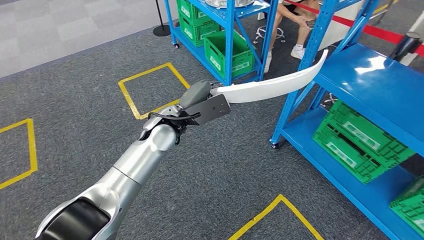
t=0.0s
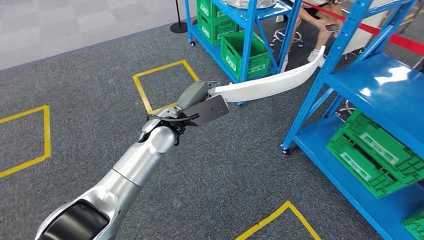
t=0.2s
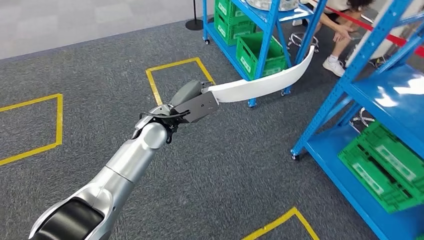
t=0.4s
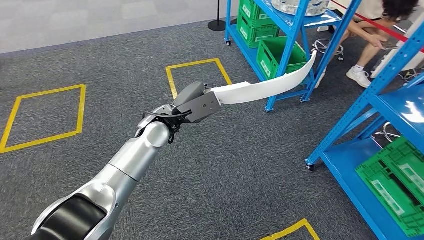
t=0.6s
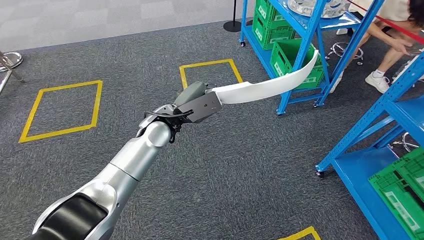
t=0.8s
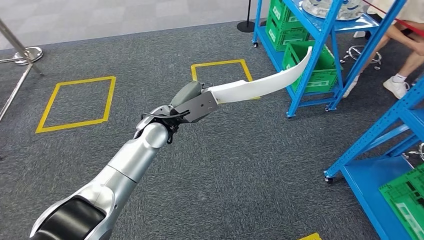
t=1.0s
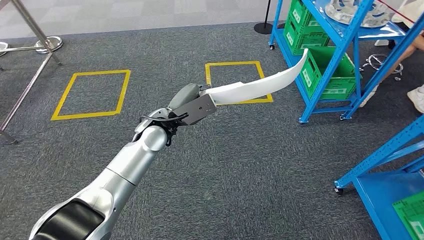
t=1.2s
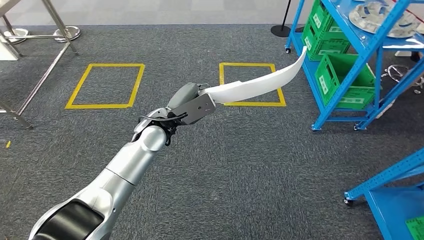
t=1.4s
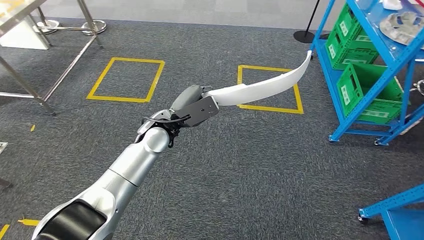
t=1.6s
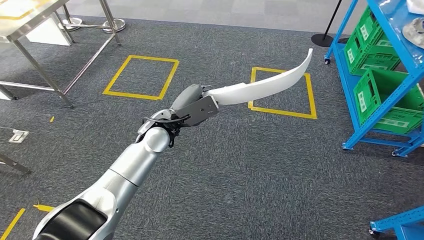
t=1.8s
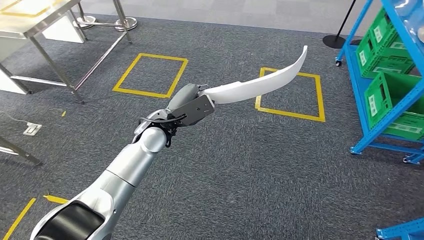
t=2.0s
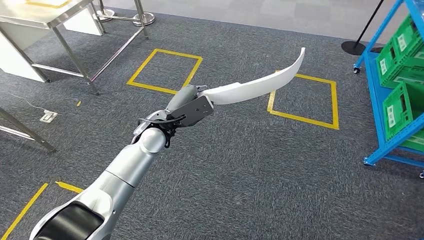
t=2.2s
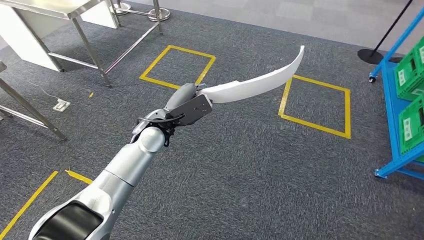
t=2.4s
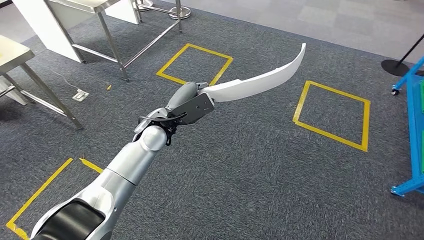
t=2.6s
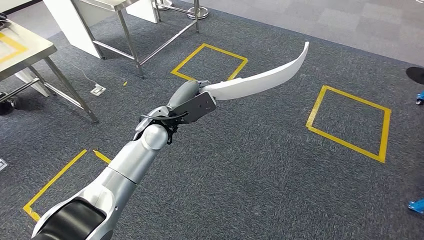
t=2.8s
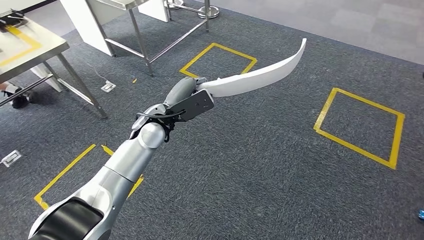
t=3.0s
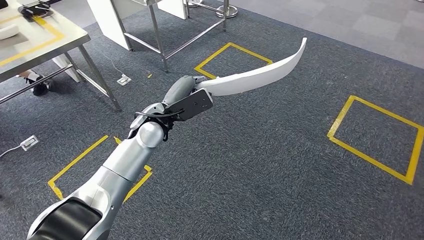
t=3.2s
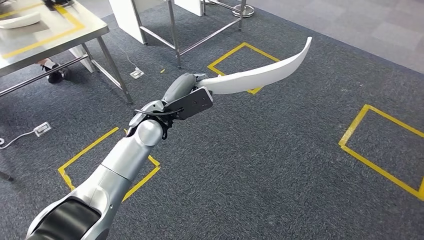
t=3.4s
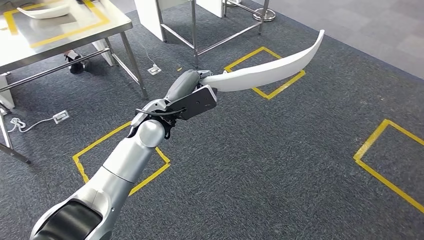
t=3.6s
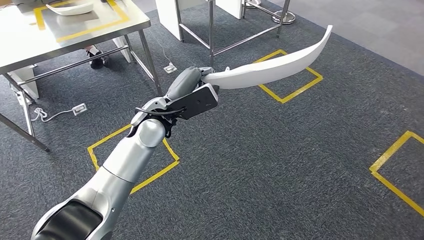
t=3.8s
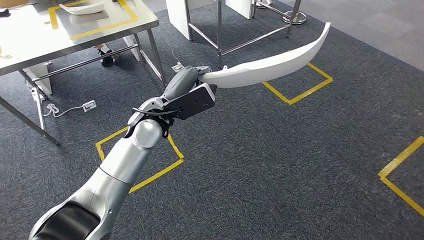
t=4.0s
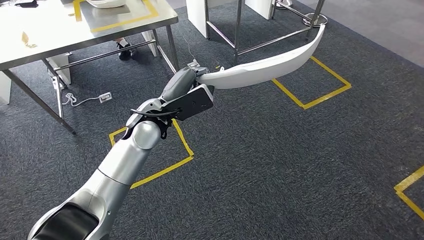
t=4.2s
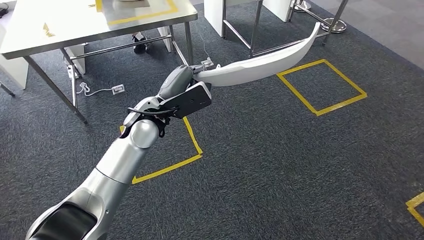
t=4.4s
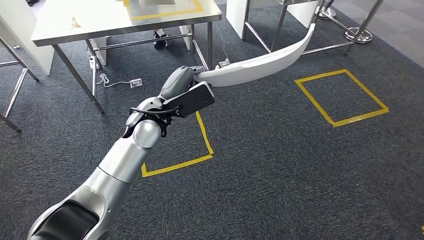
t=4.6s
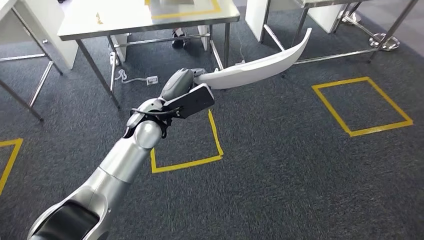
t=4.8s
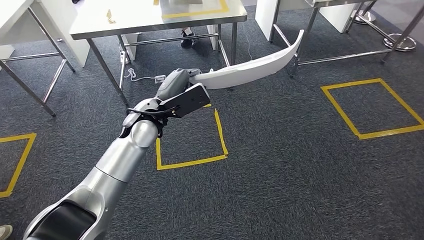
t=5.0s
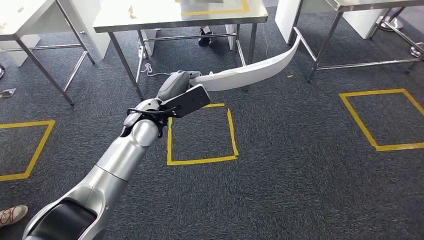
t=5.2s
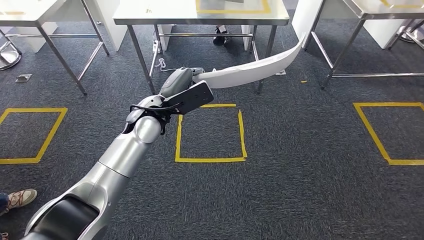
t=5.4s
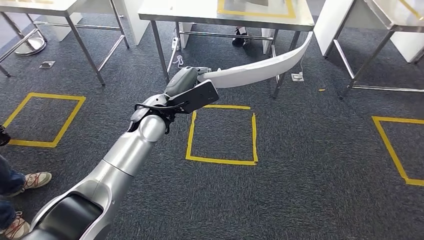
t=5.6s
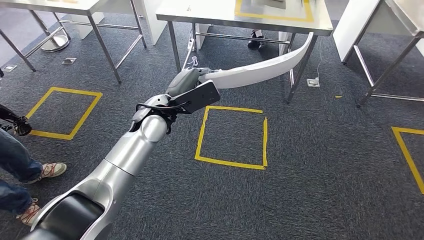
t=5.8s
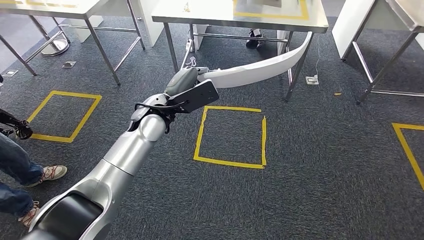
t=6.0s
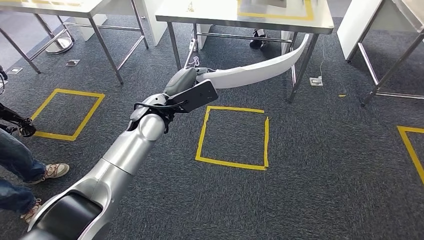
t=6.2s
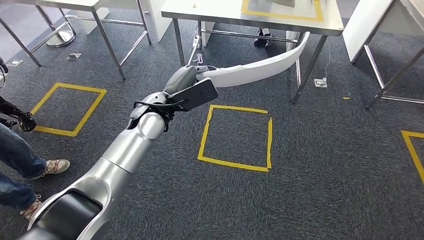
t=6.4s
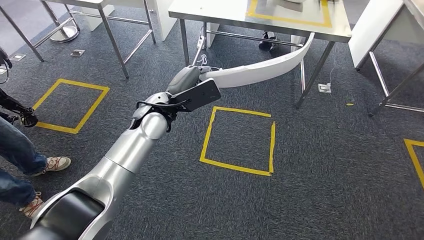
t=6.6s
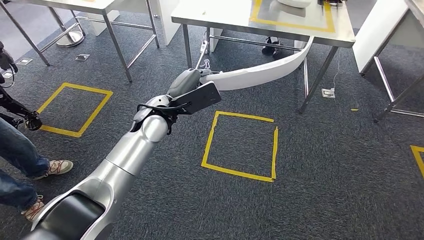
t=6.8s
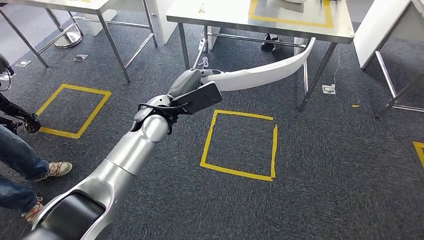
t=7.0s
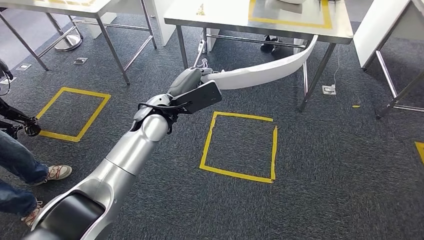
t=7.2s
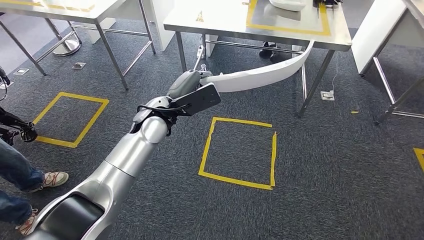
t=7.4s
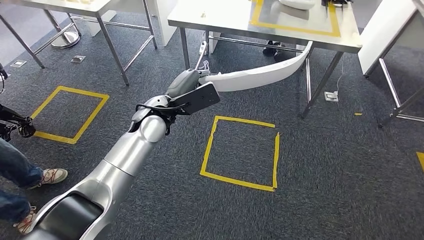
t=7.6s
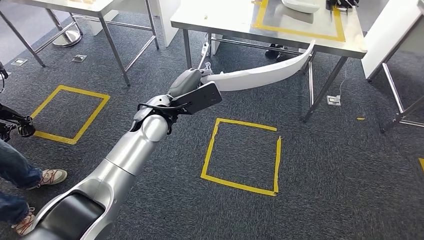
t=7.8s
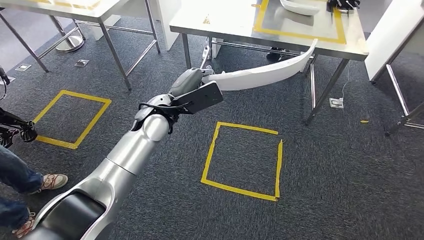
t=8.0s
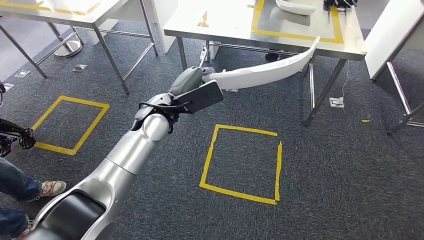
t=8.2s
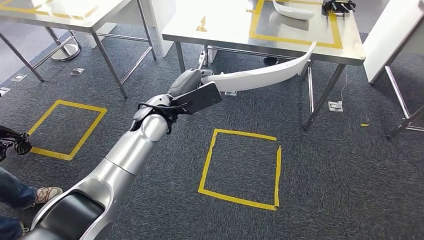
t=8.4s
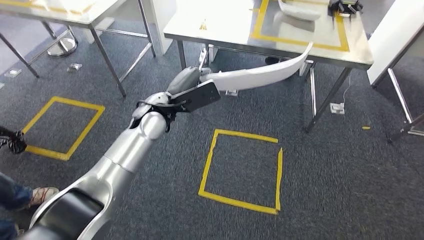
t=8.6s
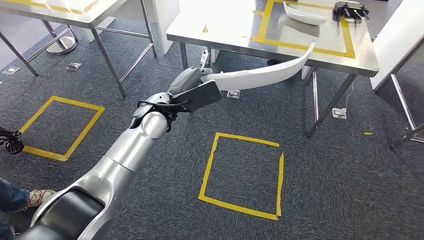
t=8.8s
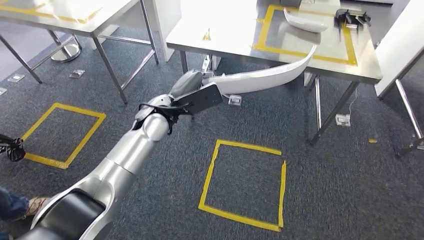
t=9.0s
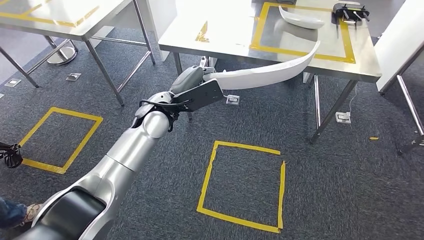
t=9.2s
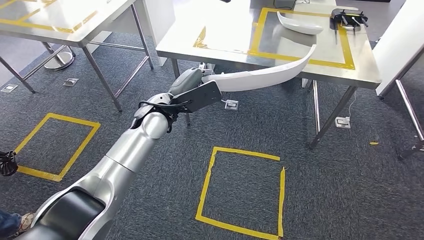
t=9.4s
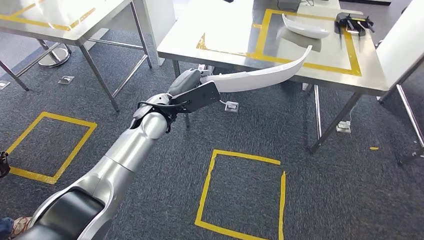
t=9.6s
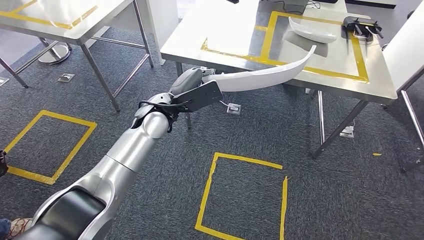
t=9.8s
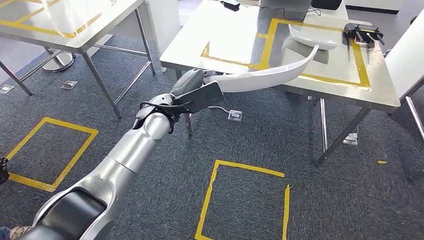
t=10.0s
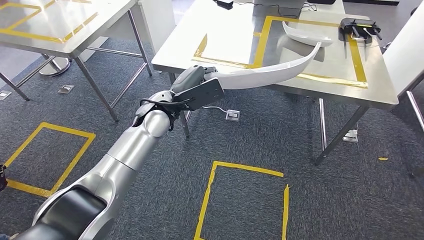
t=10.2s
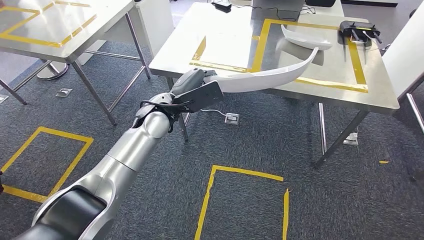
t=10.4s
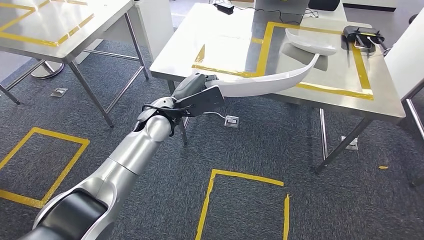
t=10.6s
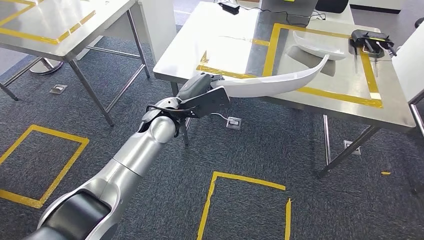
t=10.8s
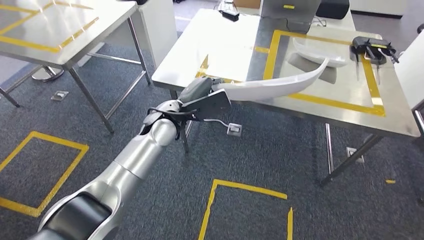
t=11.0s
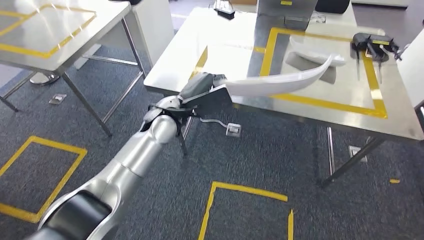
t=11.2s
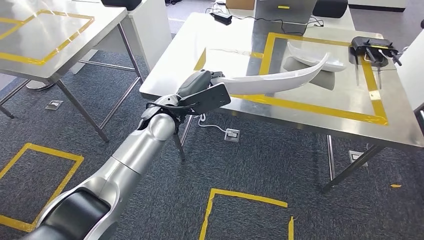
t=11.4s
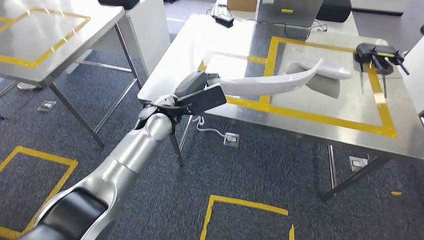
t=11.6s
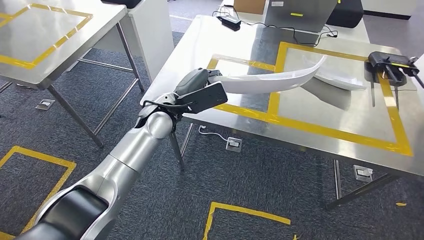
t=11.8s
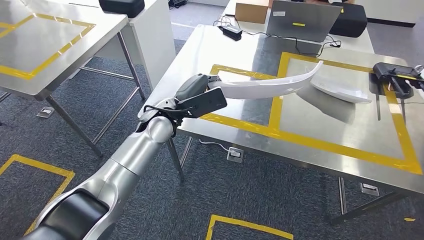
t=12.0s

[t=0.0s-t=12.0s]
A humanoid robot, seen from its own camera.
Step, t=3.4s to t=10.4s: Bring the small component to the front of the workbench.

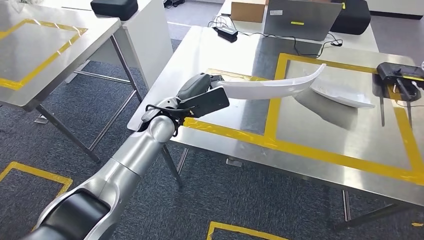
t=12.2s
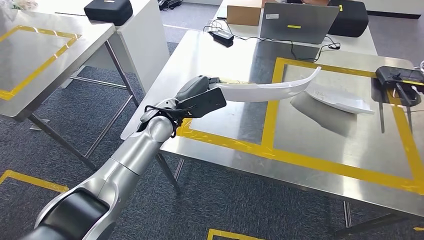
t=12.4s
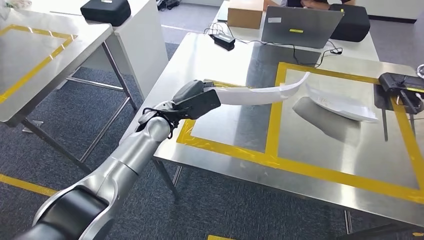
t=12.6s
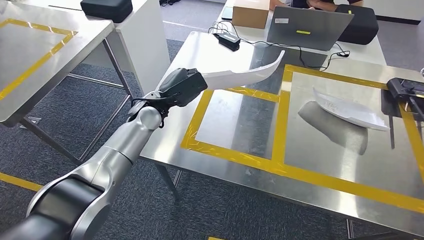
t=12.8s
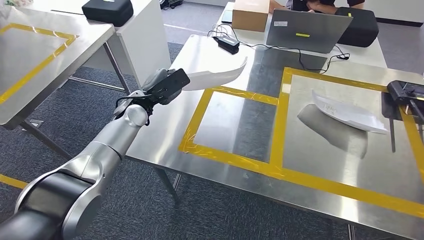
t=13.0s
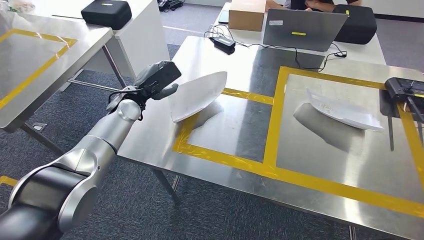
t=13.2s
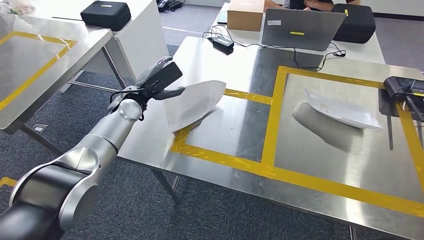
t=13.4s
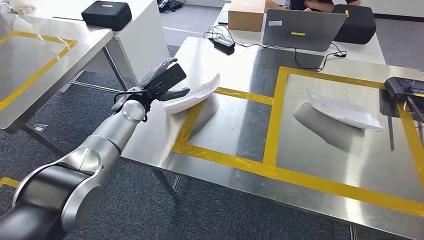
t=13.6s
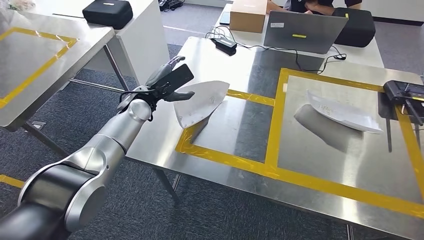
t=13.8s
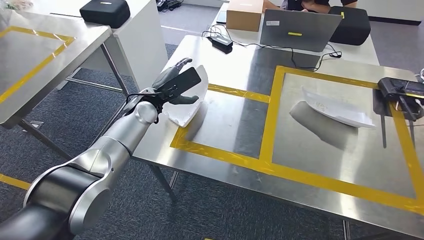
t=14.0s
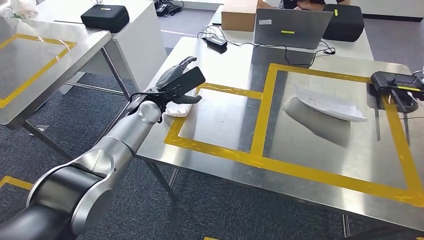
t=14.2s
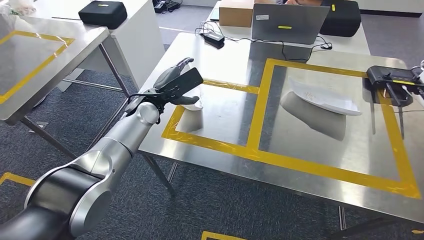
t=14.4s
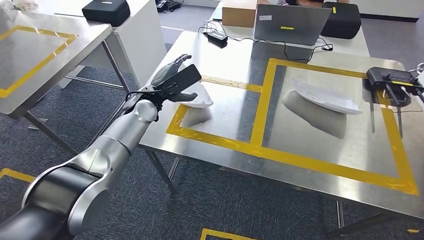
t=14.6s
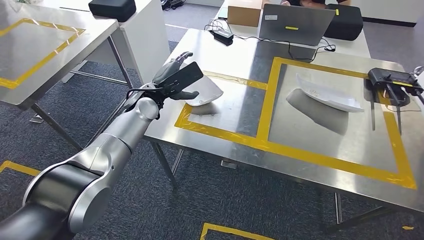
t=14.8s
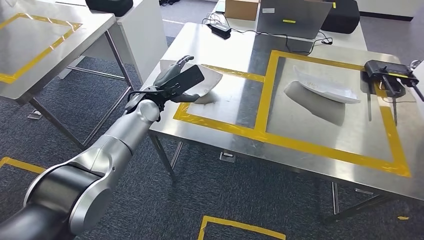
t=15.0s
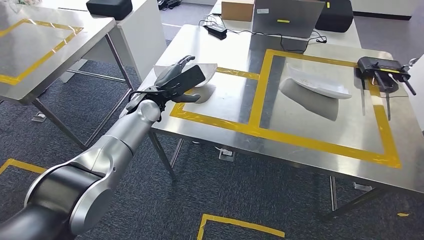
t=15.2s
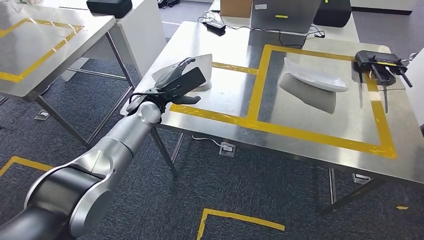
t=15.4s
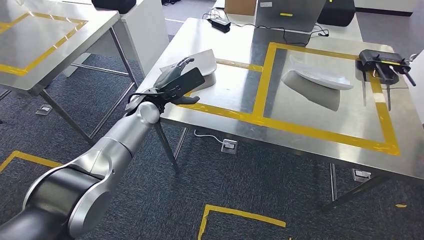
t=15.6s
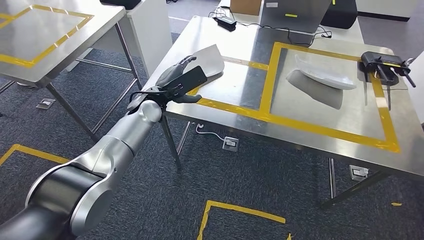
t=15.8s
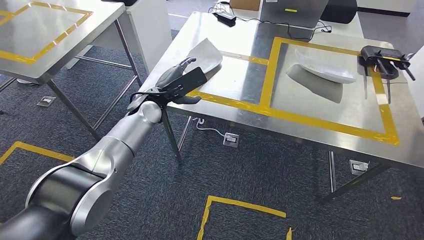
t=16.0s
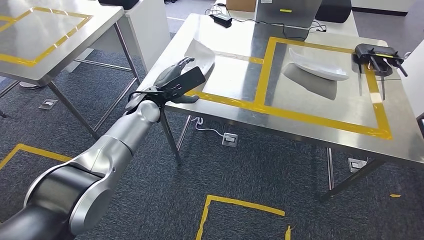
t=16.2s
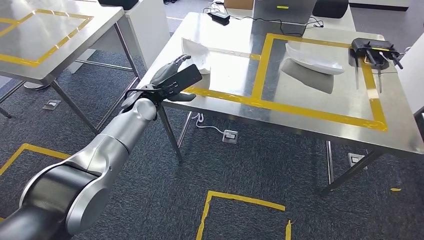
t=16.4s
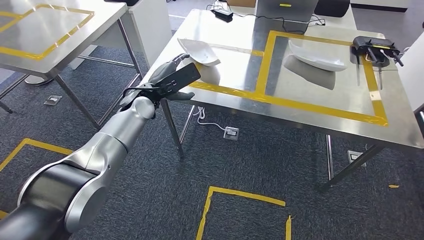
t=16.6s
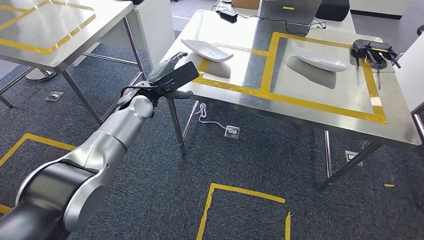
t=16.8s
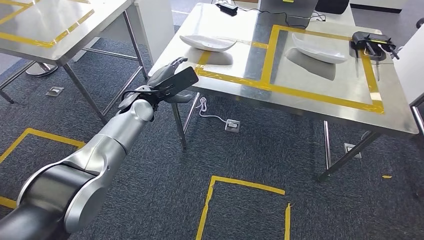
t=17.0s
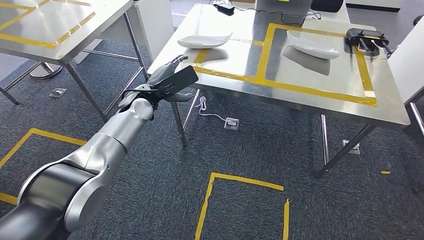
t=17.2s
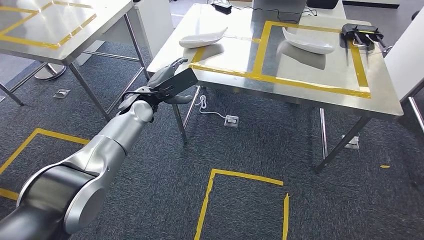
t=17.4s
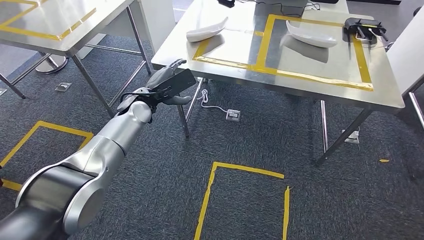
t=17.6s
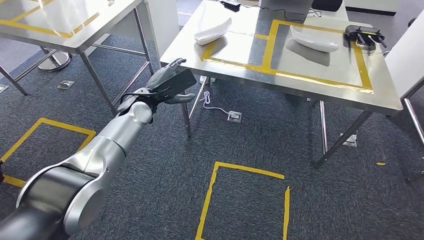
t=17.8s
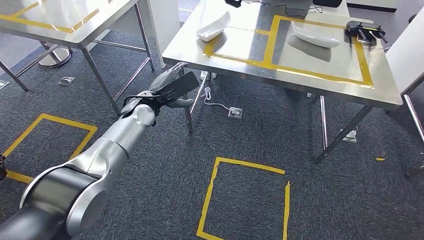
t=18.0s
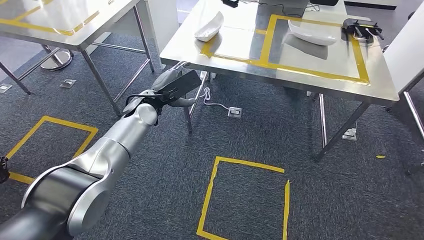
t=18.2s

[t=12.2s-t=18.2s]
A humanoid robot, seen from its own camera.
Step, t=12.4s to t=16.2s: Insert the small component into the corresponding slot on the workbench.
Step, t=17.2s to t=18.0s: Move to the initial position of the workbench.
